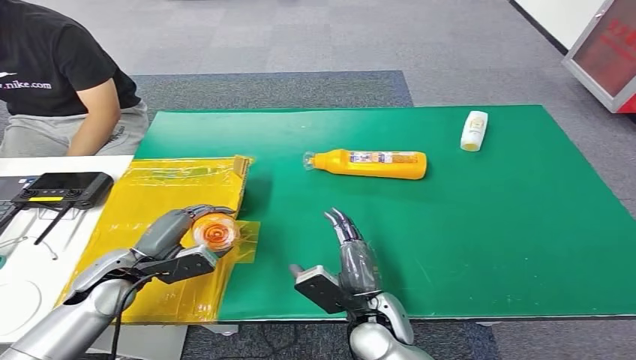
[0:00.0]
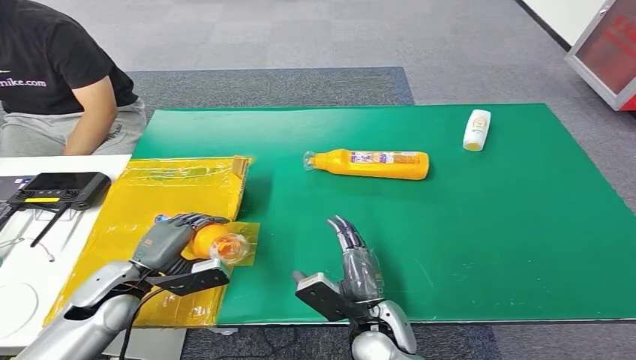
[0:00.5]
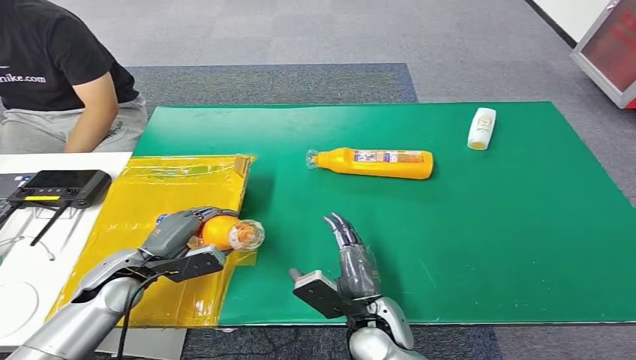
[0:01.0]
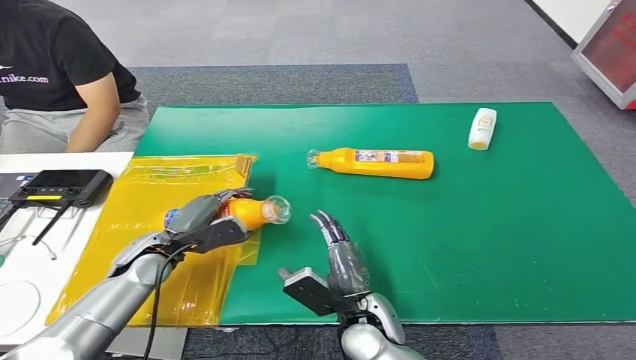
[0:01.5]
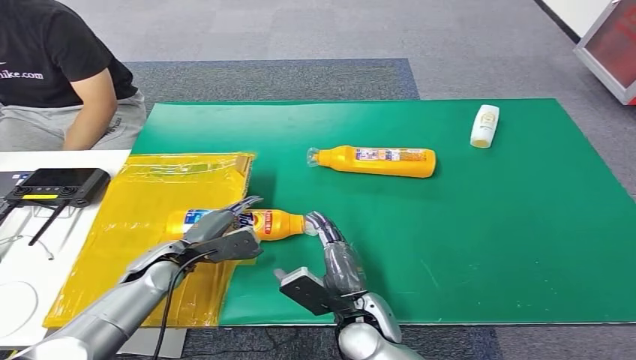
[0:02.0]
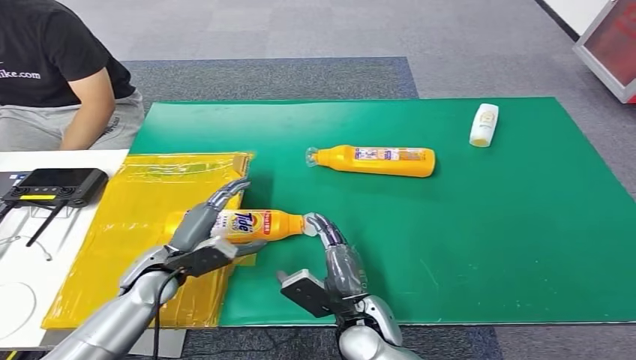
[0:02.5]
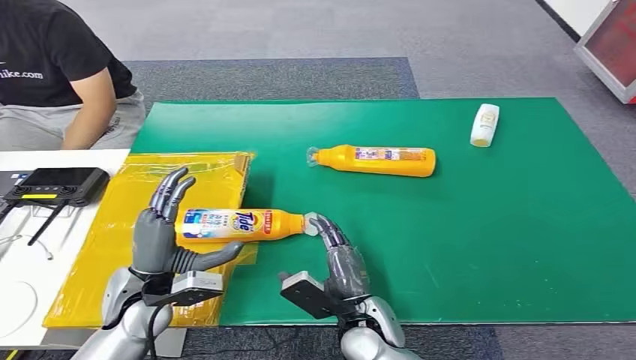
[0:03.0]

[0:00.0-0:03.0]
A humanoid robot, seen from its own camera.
Step, 0:00.0 to 0:02.5: Turn the bottle to the front side.
